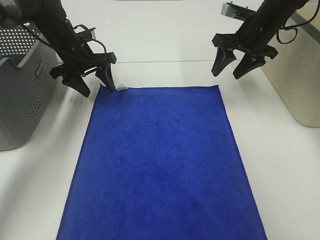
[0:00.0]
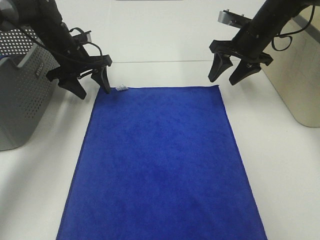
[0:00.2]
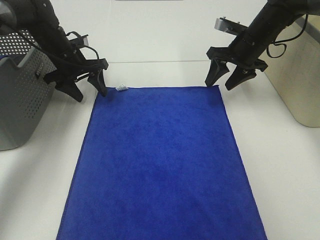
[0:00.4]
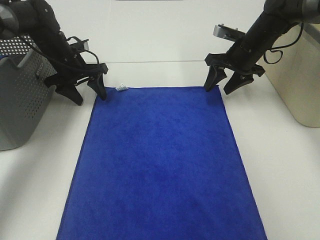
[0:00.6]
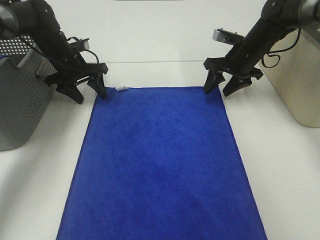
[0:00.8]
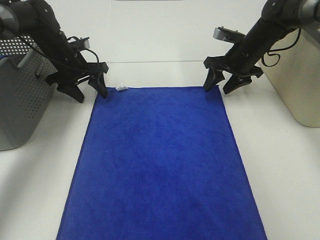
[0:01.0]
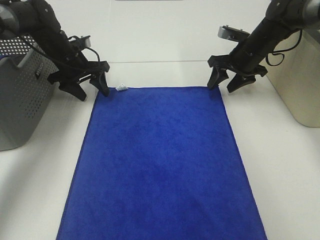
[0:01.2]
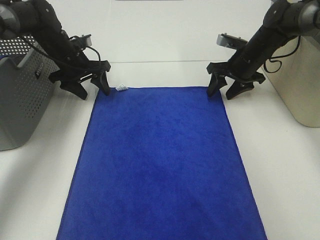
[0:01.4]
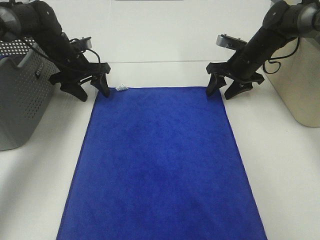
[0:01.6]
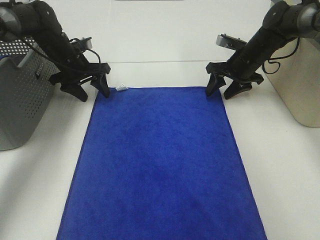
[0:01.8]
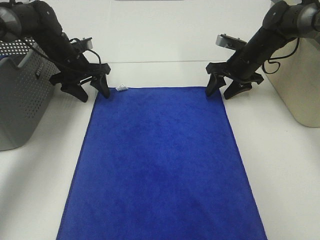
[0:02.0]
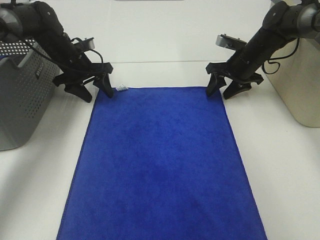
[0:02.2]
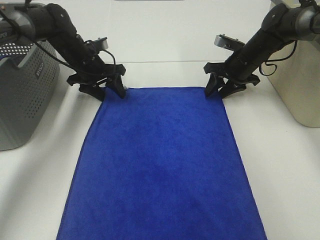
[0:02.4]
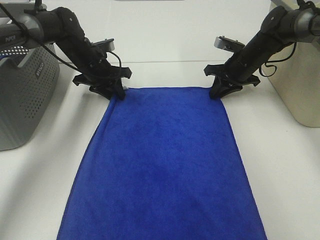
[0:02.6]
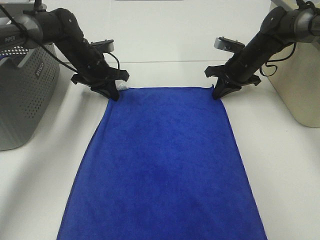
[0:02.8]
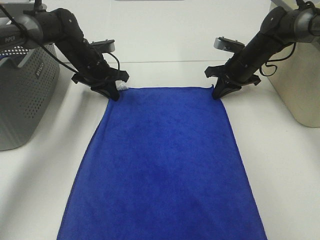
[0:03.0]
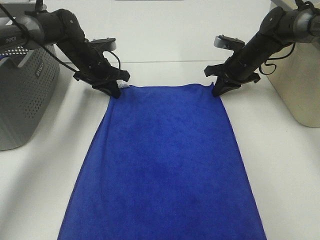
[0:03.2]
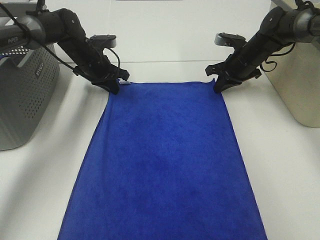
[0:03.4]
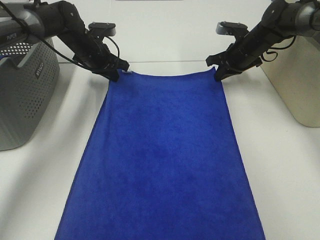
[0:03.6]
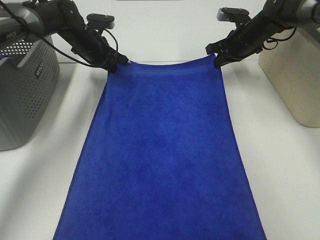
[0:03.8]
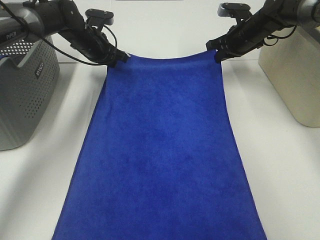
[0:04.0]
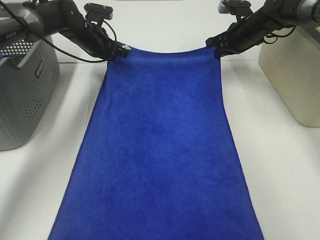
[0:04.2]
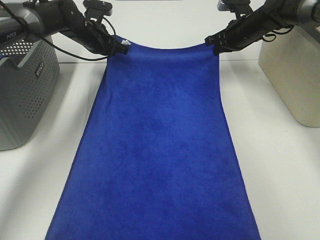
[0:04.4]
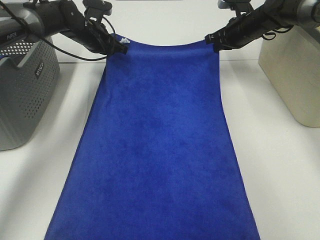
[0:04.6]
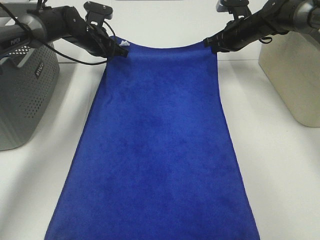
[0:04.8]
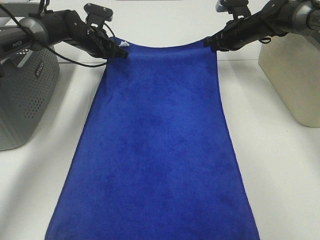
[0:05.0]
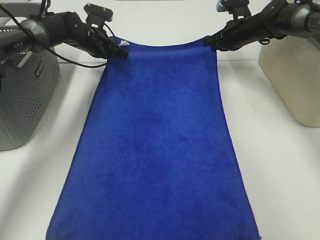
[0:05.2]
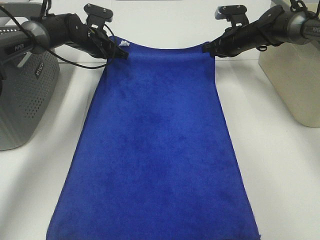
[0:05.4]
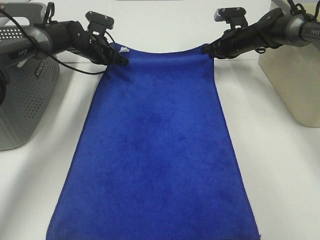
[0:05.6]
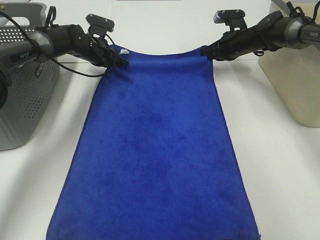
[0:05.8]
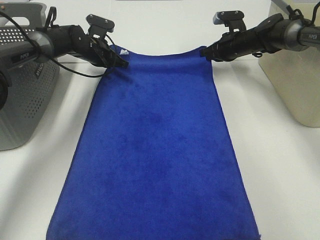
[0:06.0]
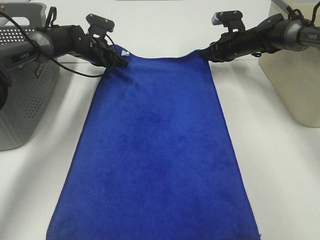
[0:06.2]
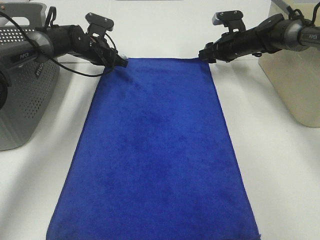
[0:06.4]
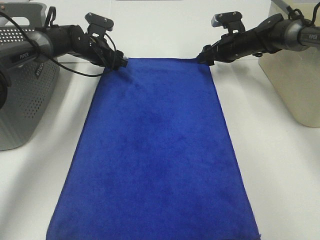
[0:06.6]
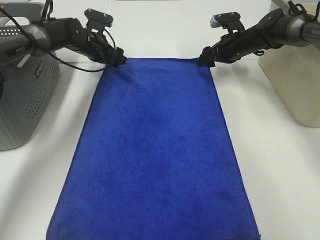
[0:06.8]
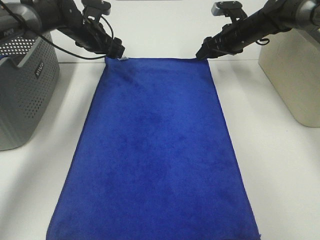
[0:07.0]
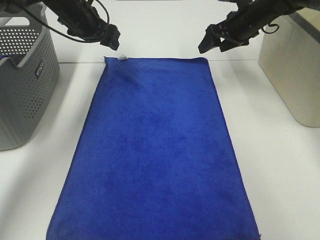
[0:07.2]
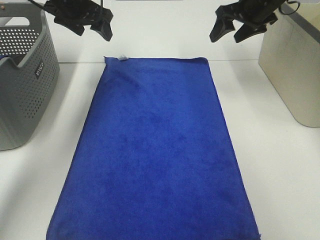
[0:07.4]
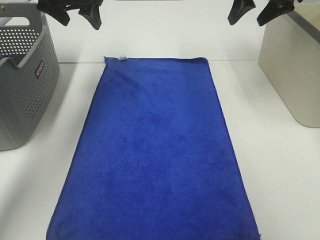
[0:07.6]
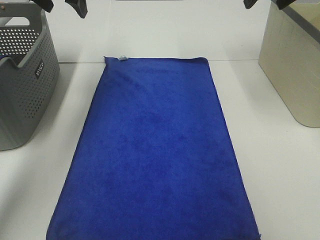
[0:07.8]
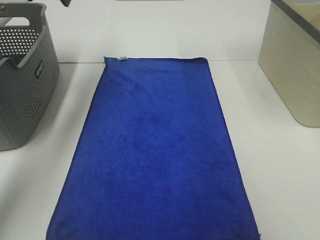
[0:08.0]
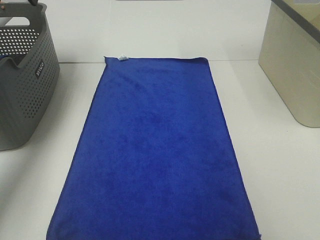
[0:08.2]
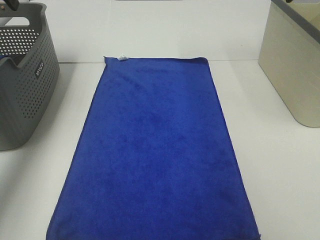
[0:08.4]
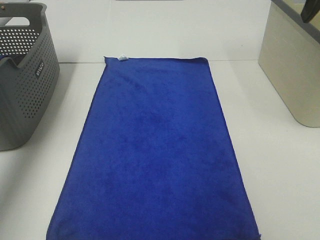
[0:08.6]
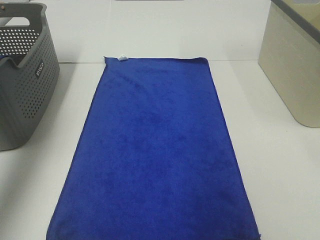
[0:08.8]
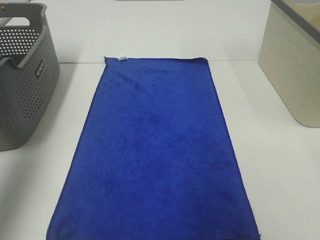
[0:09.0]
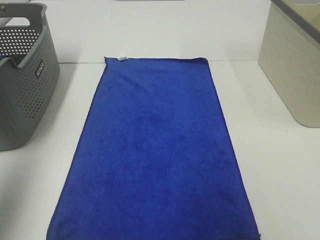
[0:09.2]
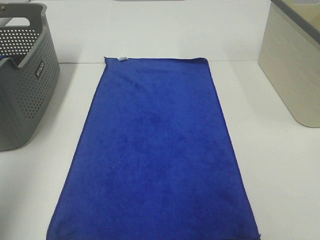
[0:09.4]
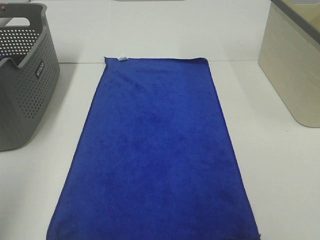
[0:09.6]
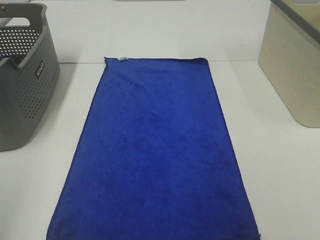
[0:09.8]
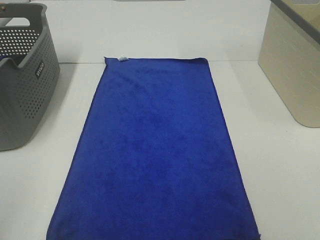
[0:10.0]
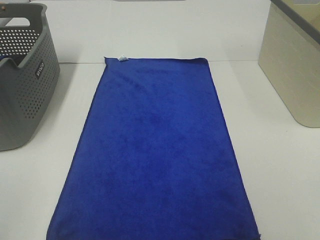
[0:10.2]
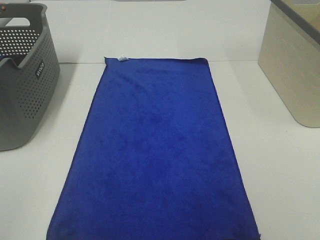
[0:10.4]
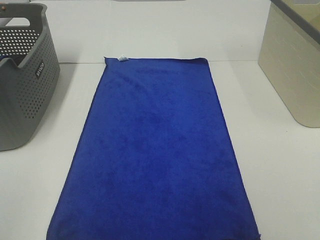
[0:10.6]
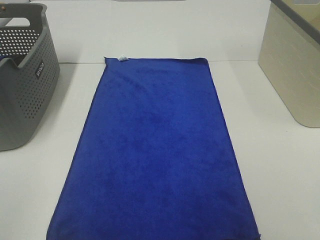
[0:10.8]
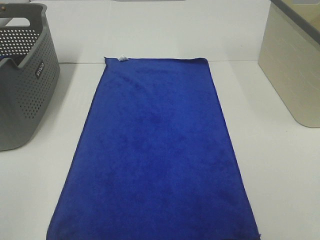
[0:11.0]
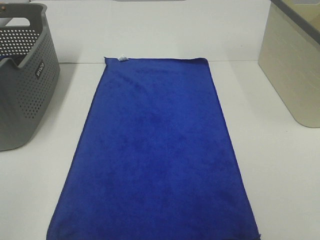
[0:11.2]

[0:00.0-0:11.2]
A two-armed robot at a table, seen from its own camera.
Task of the whole recording: Remove the towel and place it.
0:00.0 to 0:01.6: The right gripper travels downward by approximately 10 cm.
0:01.6 to 0:03.2: The left gripper closes its fingers, while the right gripper closes its fingers.
0:03.2 to 0:04.8: The right gripper changes place by some 5 cm. The left gripper travels forward by roughly 5 cm.
0:04.8 to 0:06.4: The right gripper opens up, while the left gripper opens up.
0:06.4 to 0:08.0: The right gripper heads upward and backward, covering approximately 30 cm, while the left gripper goes approximately 25 cm upward.
0:08.0 to 0:09.6: The left gripper heads backward, covering roughly 40 cm.

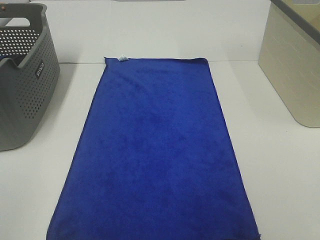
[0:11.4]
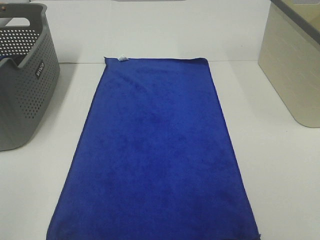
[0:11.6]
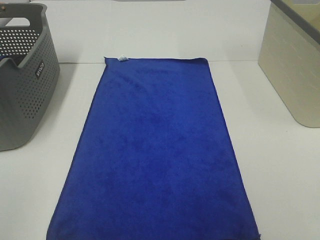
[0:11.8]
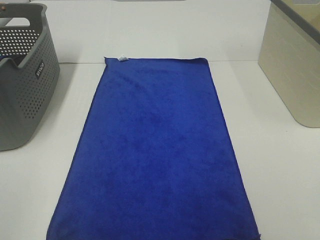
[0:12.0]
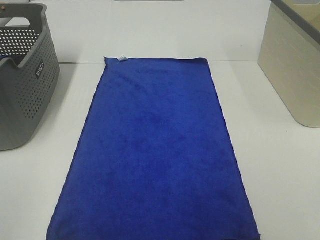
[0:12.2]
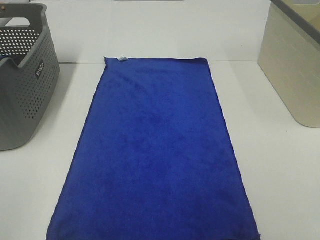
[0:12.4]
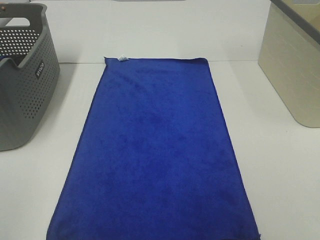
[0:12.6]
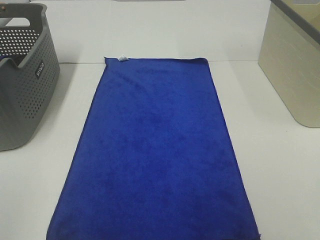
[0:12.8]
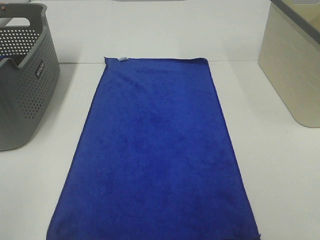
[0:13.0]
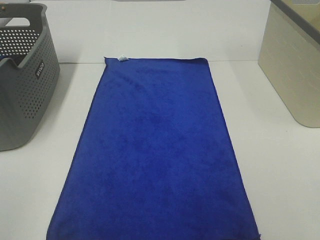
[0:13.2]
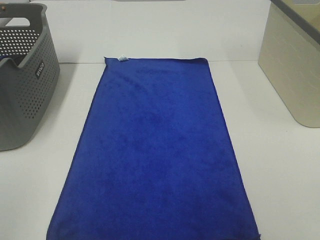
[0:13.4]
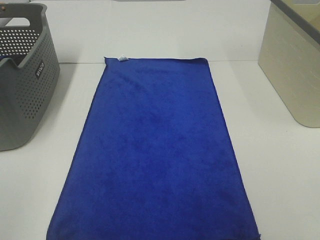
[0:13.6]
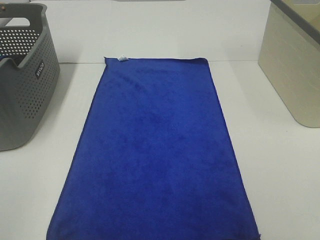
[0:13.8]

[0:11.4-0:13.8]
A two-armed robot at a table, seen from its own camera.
Task of the whole recording: Remove the towel and place it.
0:11.4 to 0:13.8: Both grippers stay put.

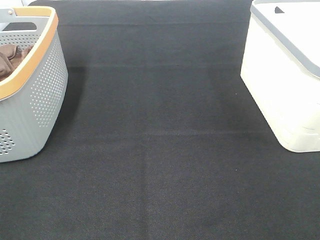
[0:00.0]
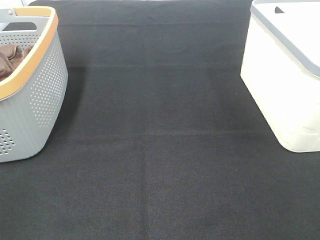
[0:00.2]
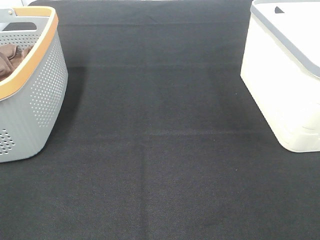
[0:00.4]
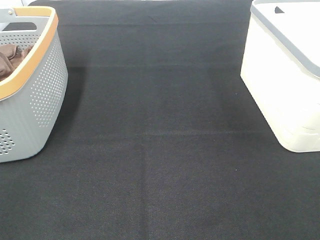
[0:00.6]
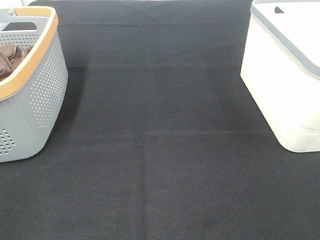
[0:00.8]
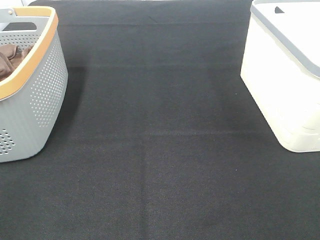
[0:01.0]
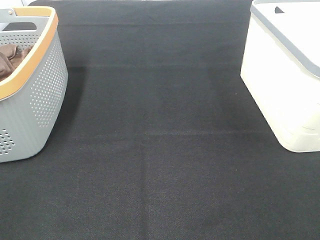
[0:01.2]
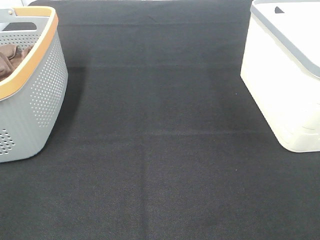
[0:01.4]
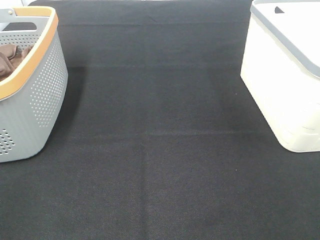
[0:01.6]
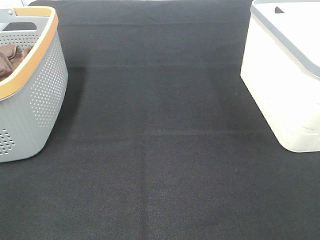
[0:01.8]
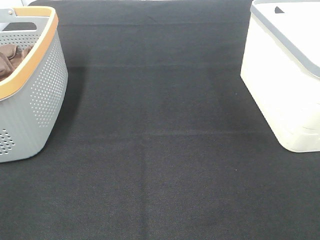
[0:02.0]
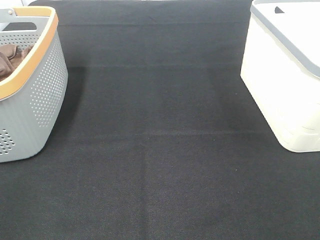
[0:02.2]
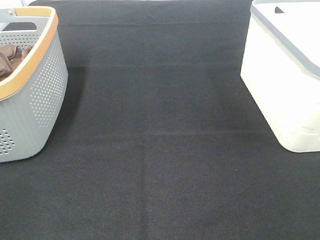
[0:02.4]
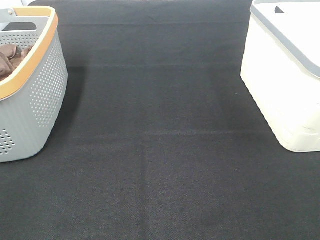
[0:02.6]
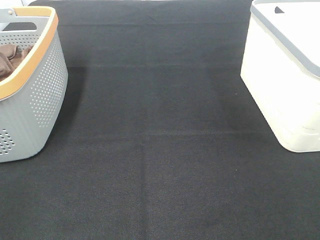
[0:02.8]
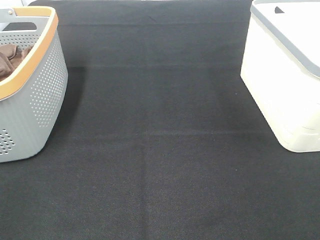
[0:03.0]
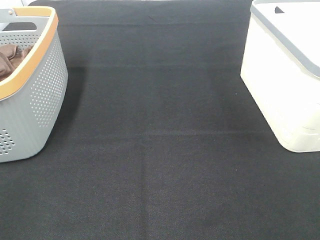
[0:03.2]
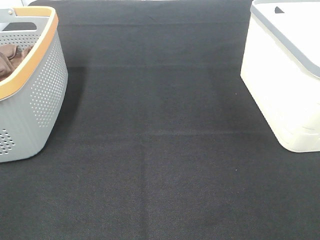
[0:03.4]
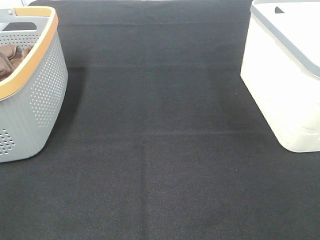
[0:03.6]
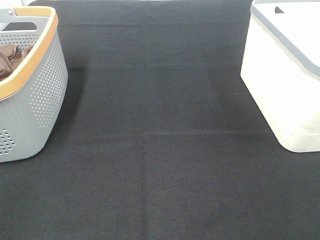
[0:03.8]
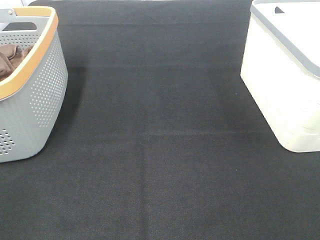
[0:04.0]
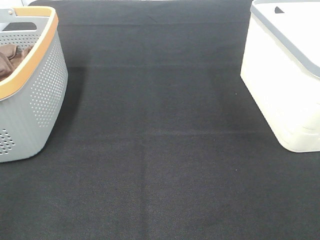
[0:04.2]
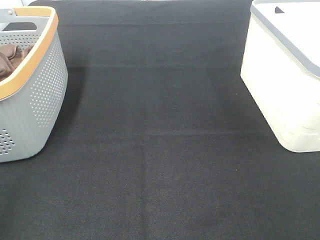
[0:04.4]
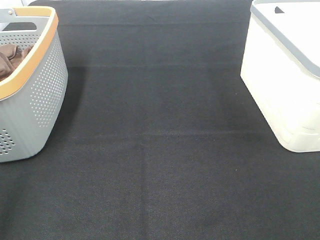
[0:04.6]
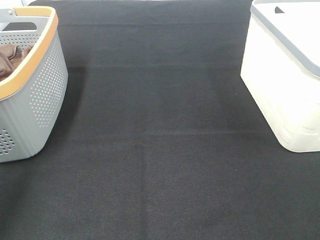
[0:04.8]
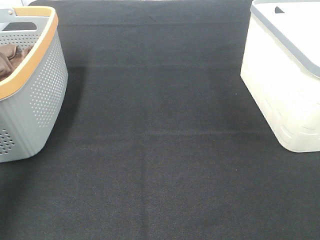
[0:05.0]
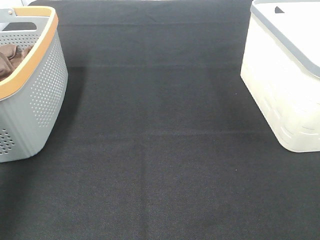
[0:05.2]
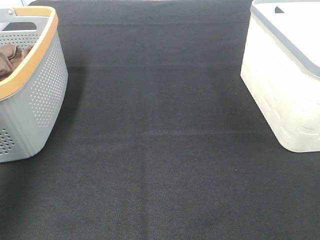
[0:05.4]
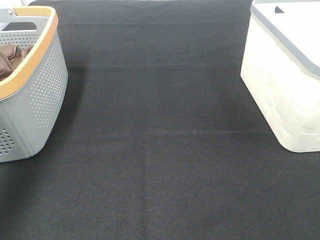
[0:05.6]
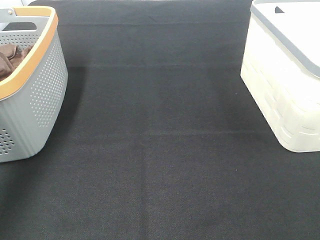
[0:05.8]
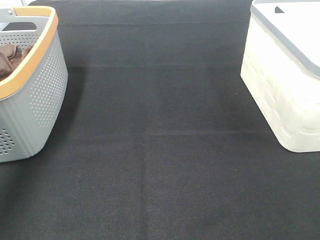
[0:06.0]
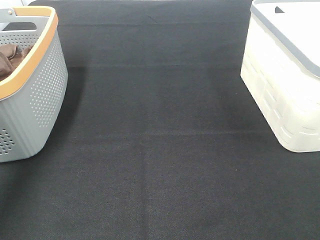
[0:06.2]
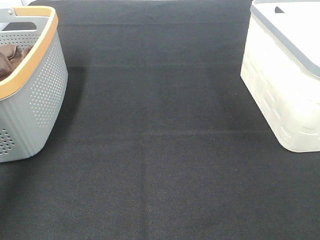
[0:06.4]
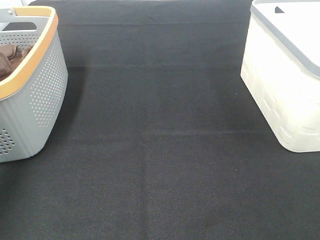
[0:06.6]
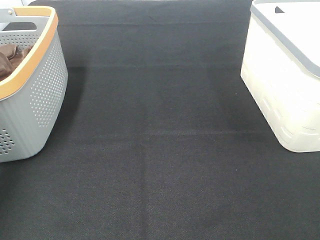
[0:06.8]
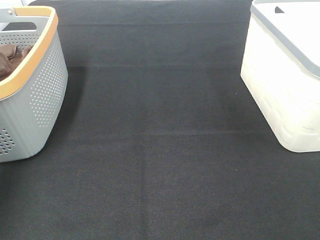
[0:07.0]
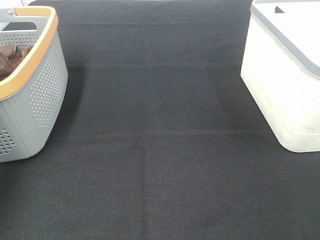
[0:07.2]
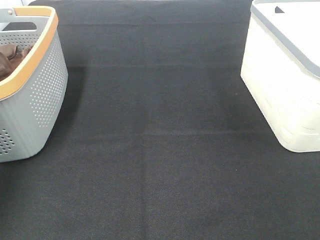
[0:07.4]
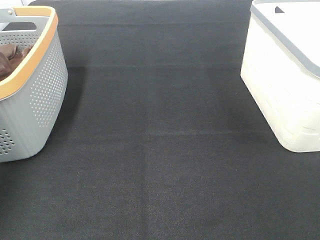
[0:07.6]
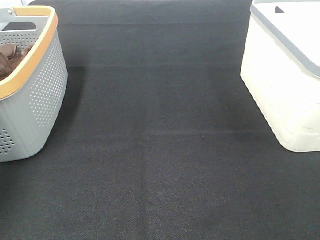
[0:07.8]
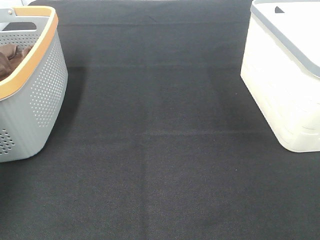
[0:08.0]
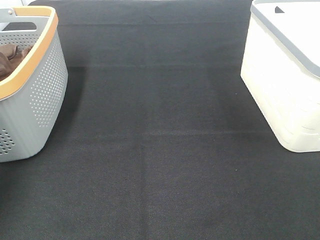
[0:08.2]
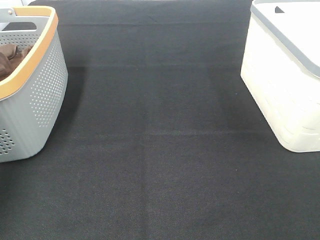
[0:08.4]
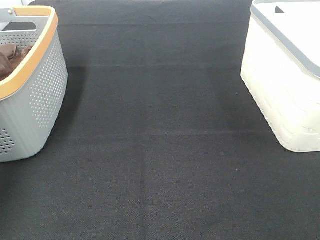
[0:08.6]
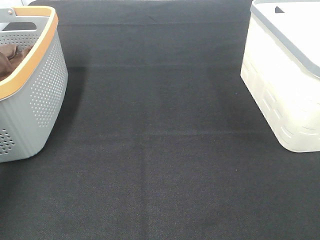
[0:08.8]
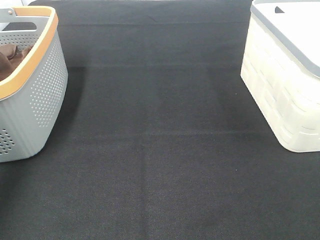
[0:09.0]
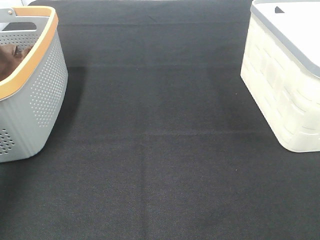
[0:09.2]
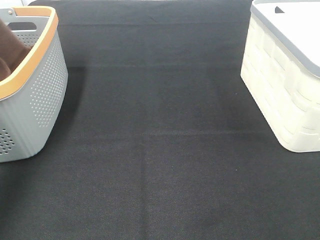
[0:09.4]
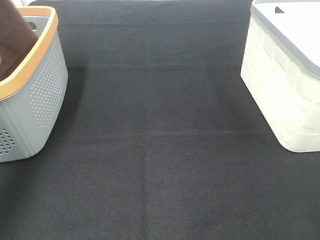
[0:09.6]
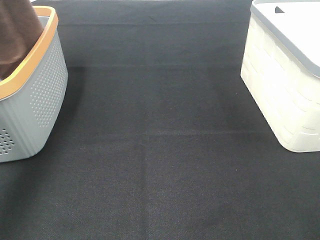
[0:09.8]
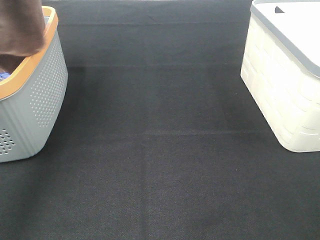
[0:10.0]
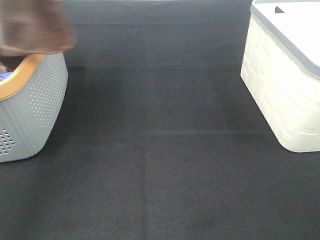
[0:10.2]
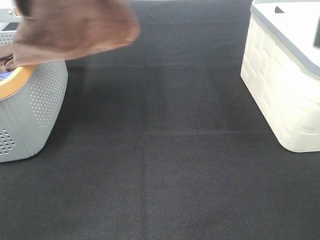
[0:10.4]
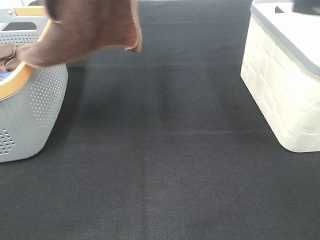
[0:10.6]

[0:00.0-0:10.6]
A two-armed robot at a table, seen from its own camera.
Task of the whole recording: Remove the towel and place it.
0:00.0 to 0:03.0: The two grippers keep their place.
0:09.0 to 0:10.6: The left gripper is displaced to the right, upward and backward by some 30 cm. Meanwhile the right gripper goes about 20 cm forward, upward and to the left.
